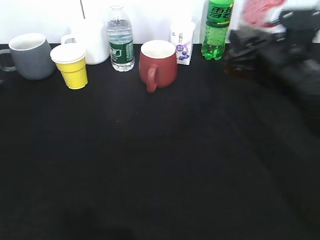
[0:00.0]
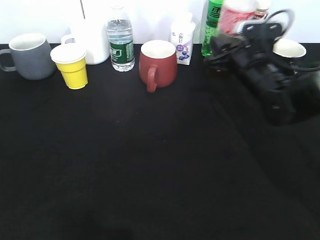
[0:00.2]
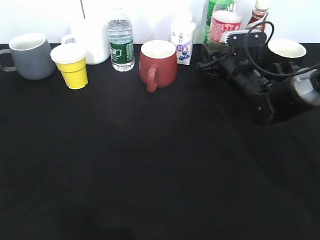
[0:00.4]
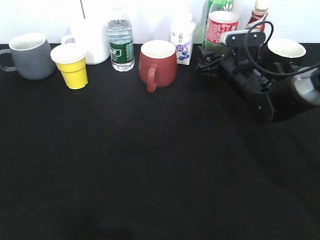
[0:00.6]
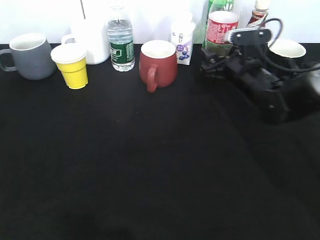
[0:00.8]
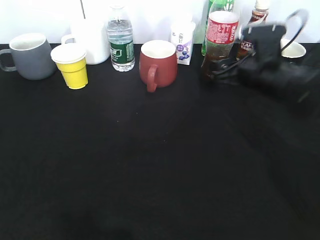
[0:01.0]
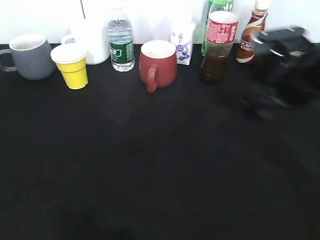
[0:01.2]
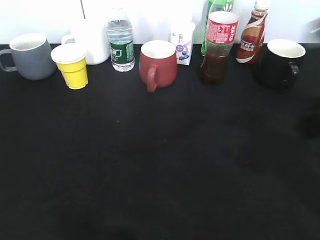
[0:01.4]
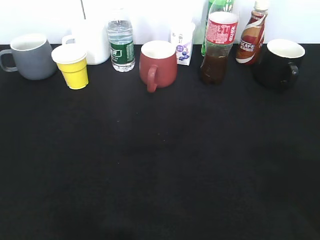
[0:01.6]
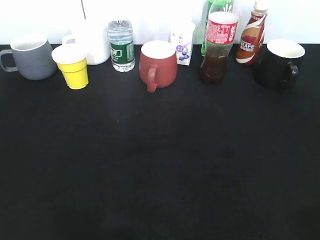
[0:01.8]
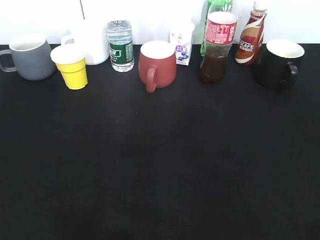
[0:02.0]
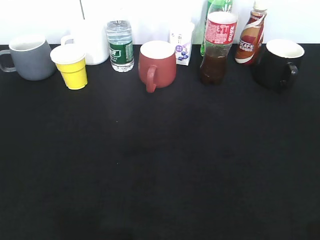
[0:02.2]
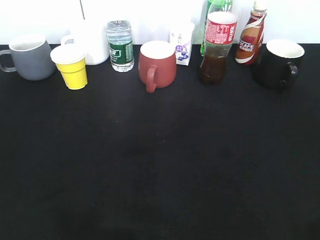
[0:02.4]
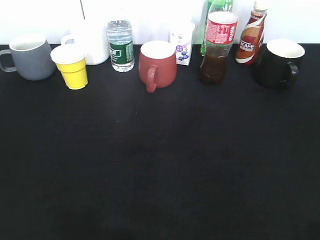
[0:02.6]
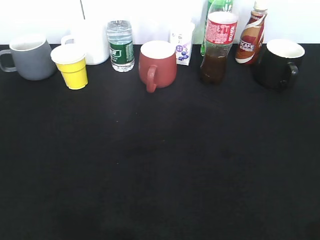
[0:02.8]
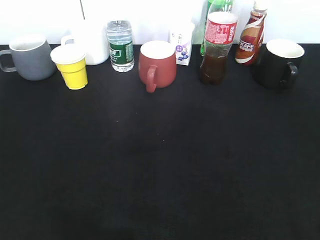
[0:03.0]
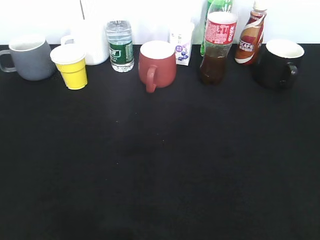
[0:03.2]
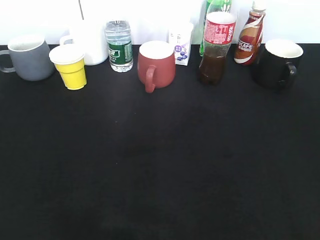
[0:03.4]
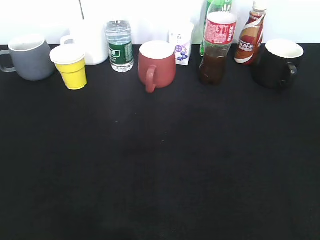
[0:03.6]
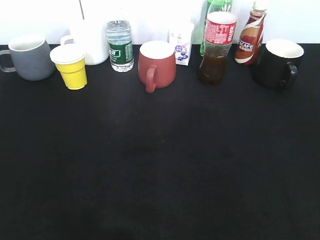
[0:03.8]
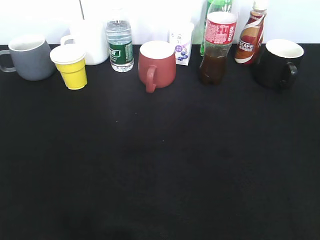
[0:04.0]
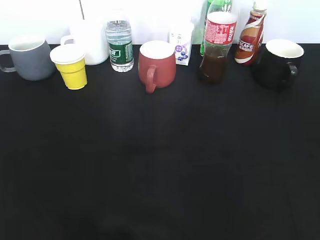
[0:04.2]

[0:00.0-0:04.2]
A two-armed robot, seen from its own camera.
Step, 0:00.0 to 0:01.0: Place the cola bottle on the table with right gripper.
0:00.0 to 0:01.4: Both grippers travel together backward and upward, about 20 cm. The right gripper opens up.
0:01.4 to 0:02.8: The left gripper is displaced backward by approximately 10 cm. Meanwhile the right gripper travels backward by roughly 20 cm.

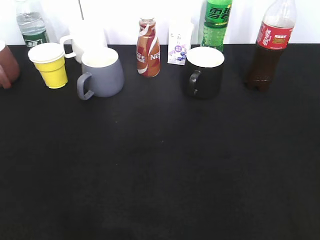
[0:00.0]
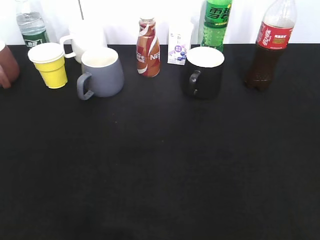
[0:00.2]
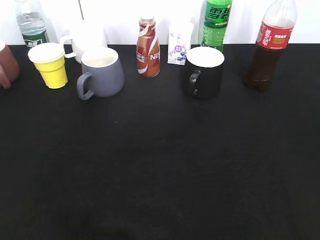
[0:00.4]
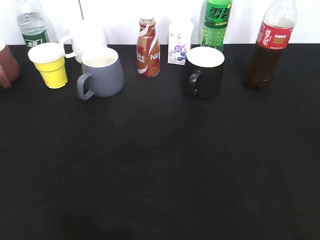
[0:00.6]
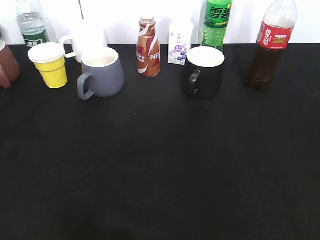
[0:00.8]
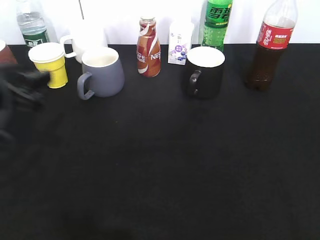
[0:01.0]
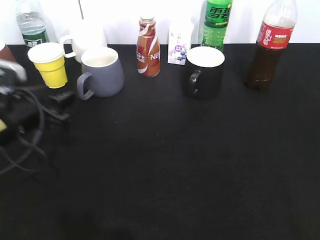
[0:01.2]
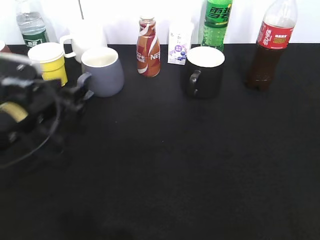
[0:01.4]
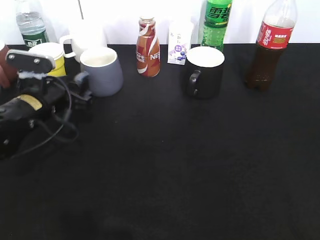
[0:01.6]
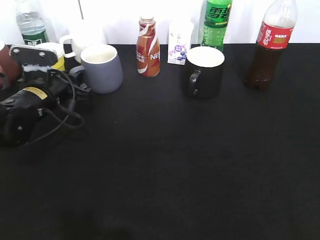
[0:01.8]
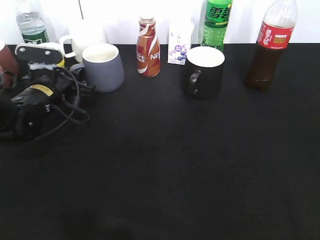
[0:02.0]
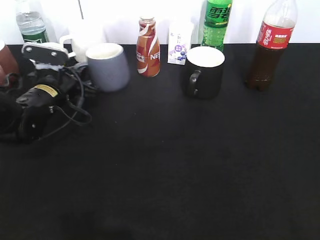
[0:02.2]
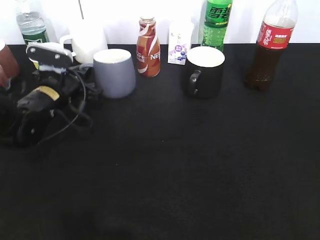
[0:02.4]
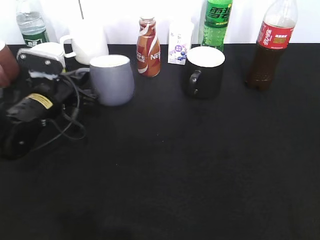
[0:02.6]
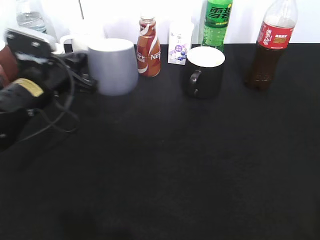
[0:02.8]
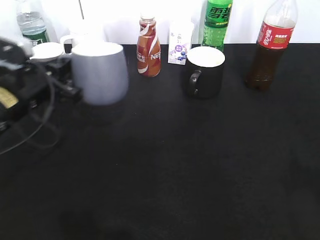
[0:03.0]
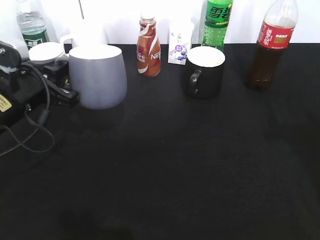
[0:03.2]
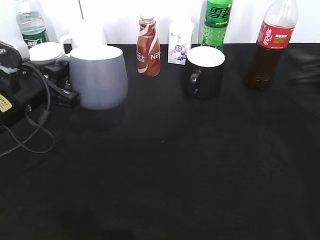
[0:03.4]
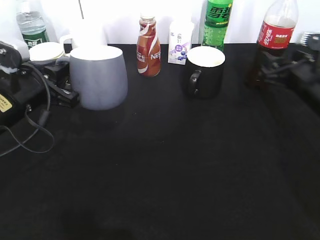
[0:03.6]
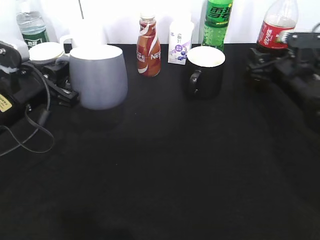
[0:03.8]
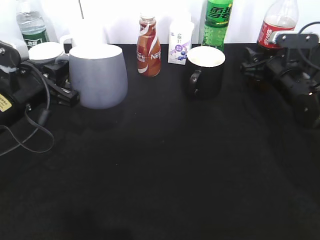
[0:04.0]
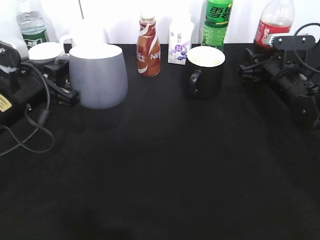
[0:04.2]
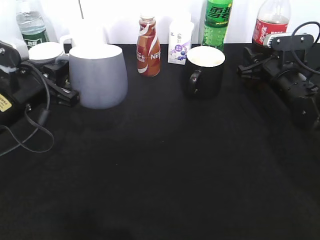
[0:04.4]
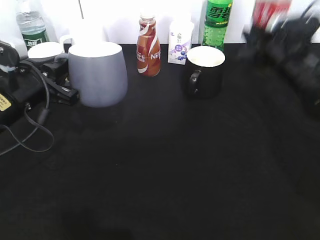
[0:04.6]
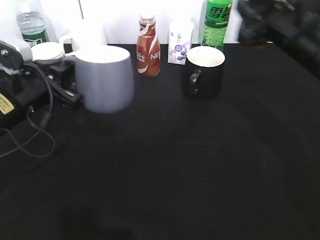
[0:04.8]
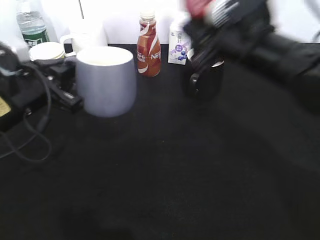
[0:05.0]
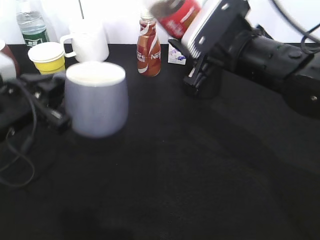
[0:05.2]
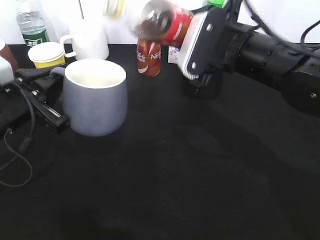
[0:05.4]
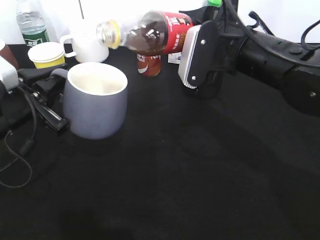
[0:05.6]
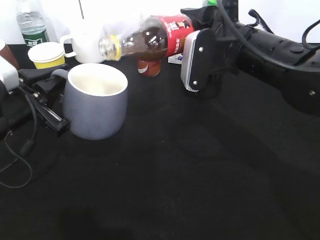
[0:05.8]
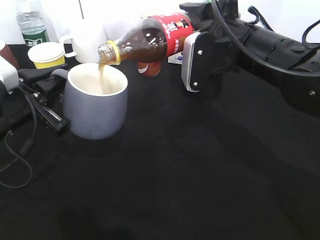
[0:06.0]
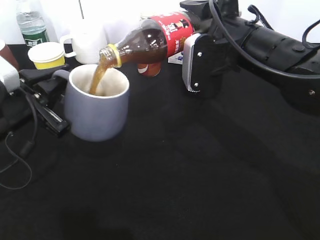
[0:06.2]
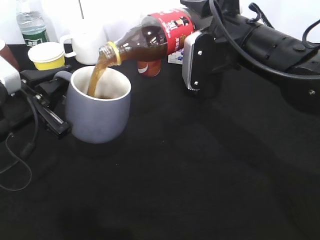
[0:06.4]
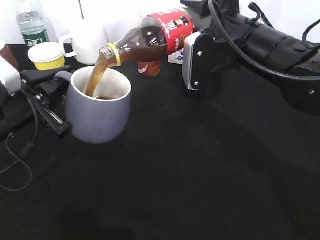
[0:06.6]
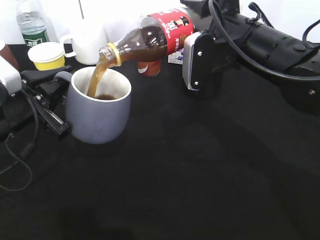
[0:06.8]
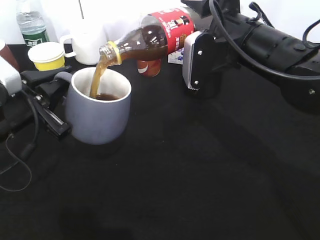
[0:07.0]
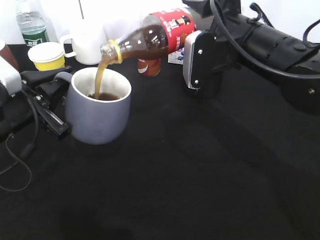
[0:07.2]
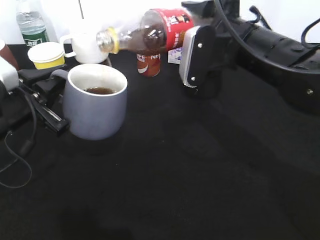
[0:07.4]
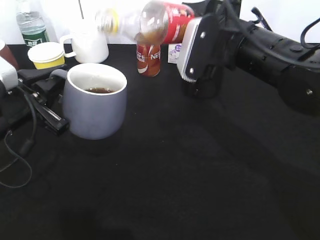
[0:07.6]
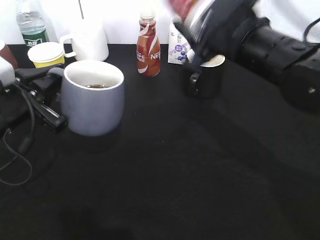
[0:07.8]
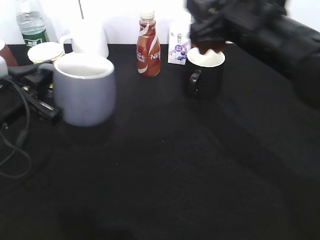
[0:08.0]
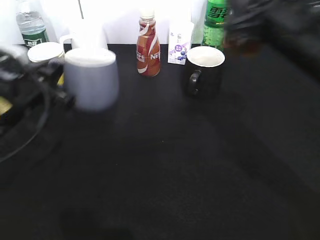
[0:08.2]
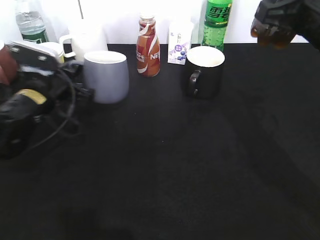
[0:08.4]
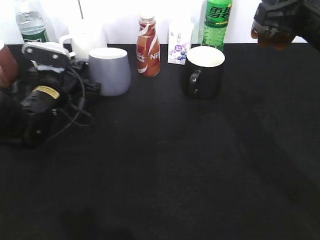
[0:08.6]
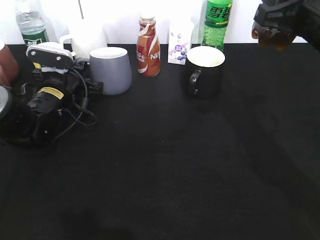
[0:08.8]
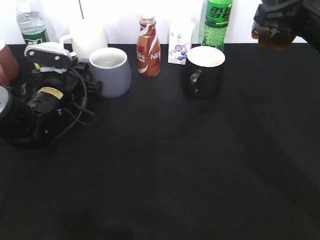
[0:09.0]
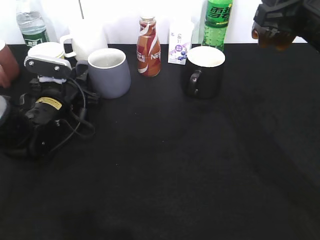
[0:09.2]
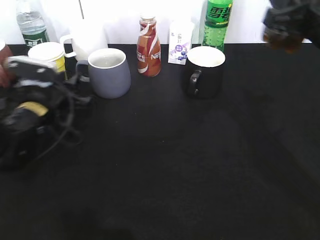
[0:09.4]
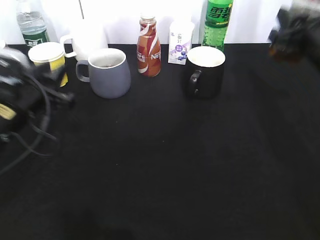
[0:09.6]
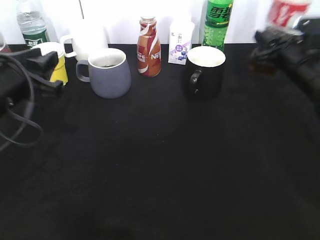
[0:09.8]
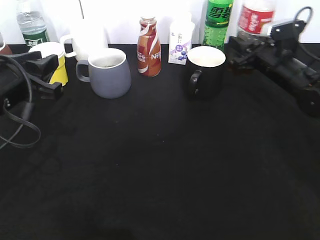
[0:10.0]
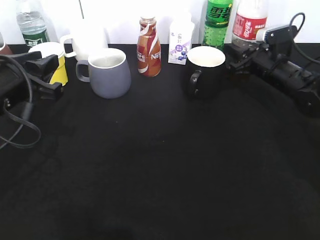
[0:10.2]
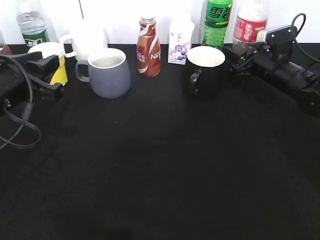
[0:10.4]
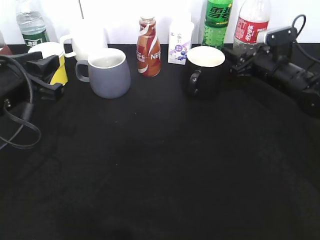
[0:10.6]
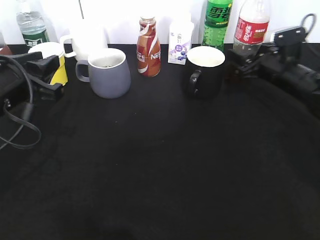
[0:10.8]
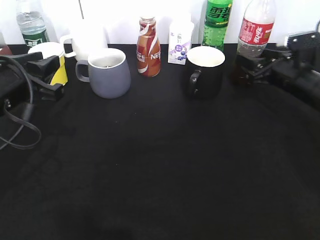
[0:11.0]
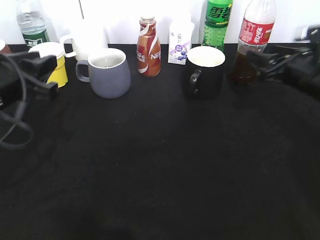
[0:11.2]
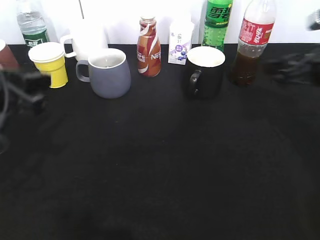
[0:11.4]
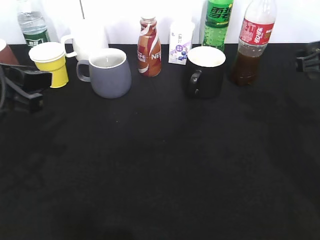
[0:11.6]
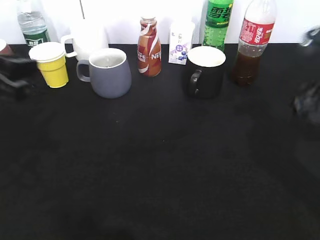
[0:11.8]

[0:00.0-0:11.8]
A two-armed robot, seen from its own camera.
Step, 0:00.0 to 0:02.0: Grasp the grey cup with left gripper.
Step, 0:02.4 to 0:03.2: Lift the grey cup with left gripper.
Step, 0:03.4 to 0:04.2: Grasp the bottle with cola with right gripper.
Step, 0:04.4 to 0:07.0: Pour the cola from bottle to cup with right gripper.
Step, 0:07.4 to 0:09.2: Place the grey cup on the table with left gripper.
Step, 0:09.4 to 0:11.2: Place the cola bottle on the table with right gripper.
0:00.0 to 0:01.4: The left gripper is displaced forward and downward by approximately 35 cm.
0:01.4 to 0:03.0: The right gripper goes approximately 10 cm forward, while the left gripper goes forward and returns, approximately 5 cm each way, and closes its fingers.
0:03.0 to 0:04.4: The right gripper moves forward and downward, approximately 35 cm, and closes up.
0:04.4 to 0:06.0: The right gripper travels to the left, upward and backward by about 20 cm.
0:06.0 to 0:07.4: There are only small adjustments of the grippers.
0:07.4 to 0:08.8: The right gripper shifts roughly 10 cm to the right; the left gripper heads forward and downward, covering about 15 cm.
0:08.8 to 0:10.4: The right gripper heads downward and forward, covering approximately 25 cm, and opens its fingers; the left gripper heads backward and upward, covering roughly 15 cm, and opens its fingers.
0:10.4 to 0:11.8: The right gripper moves backward and upward, about 25 cm; the left gripper travels upward by roughly 5 cm.

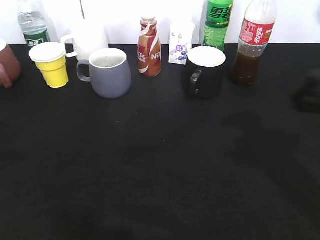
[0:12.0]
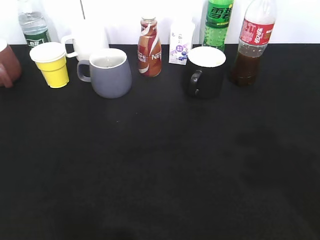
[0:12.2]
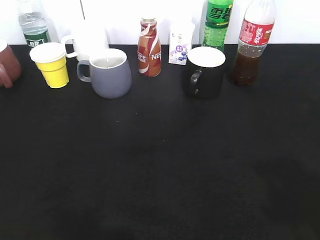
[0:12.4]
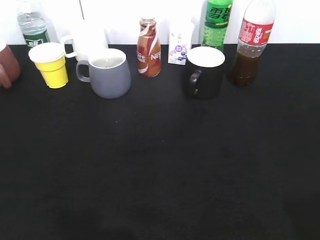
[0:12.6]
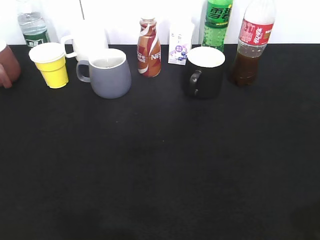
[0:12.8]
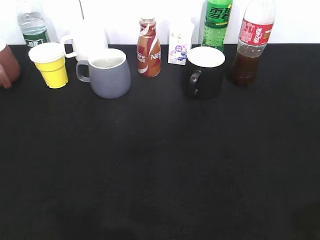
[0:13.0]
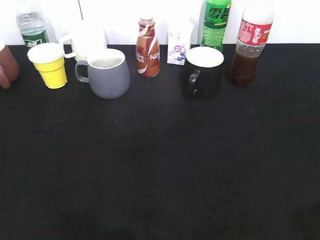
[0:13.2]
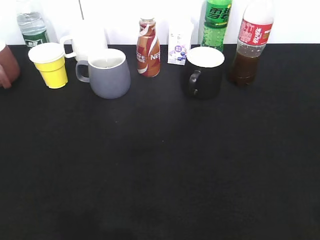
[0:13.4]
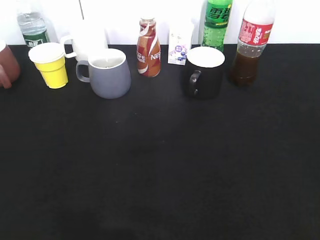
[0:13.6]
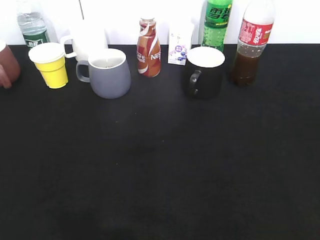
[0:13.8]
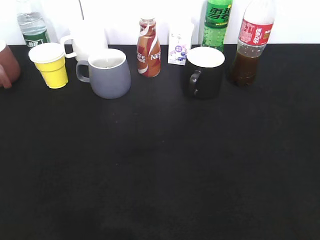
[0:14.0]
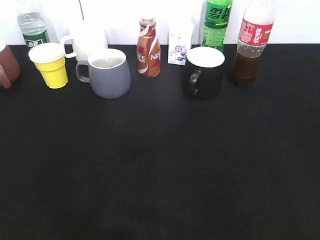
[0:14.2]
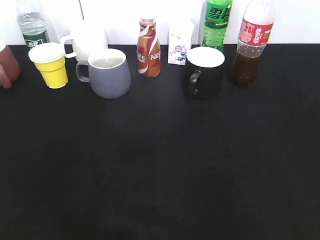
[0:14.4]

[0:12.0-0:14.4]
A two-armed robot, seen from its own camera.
0:12.0 to 0:13.2: The left gripper goes about 15 cm backward, while the right gripper moves backward and to the right, some 20 cm.

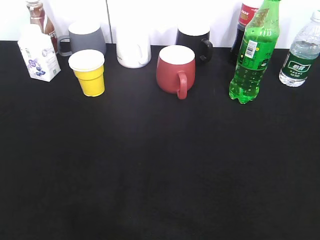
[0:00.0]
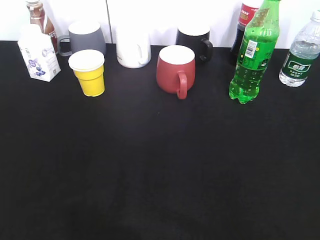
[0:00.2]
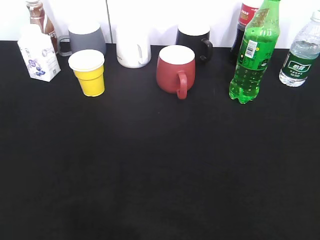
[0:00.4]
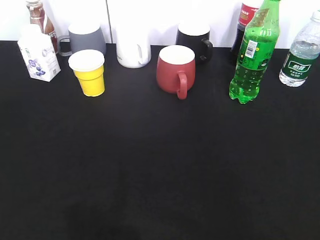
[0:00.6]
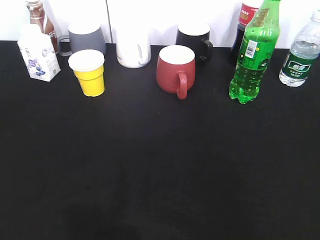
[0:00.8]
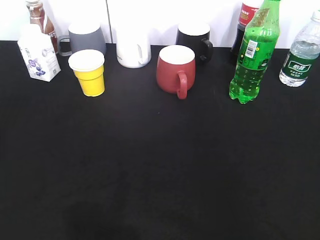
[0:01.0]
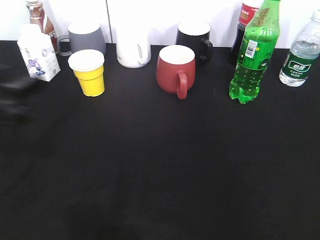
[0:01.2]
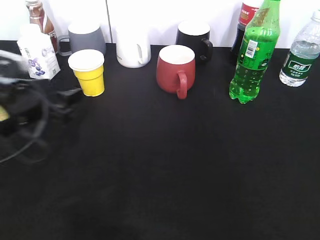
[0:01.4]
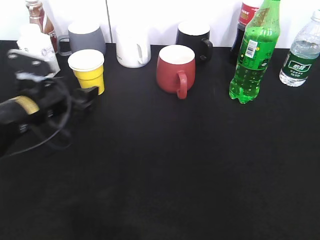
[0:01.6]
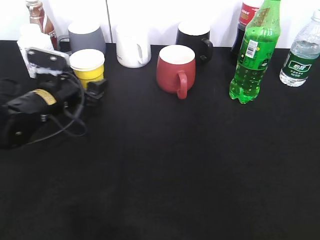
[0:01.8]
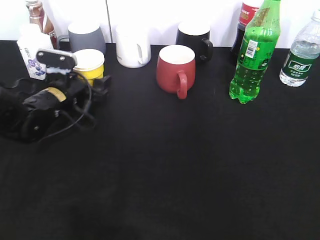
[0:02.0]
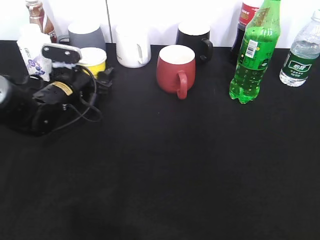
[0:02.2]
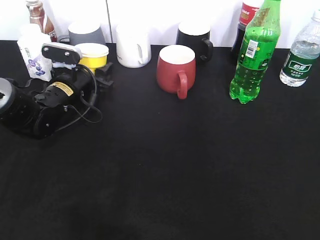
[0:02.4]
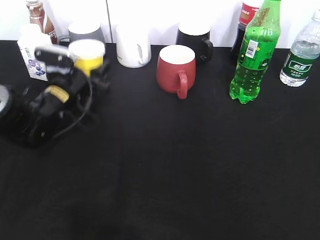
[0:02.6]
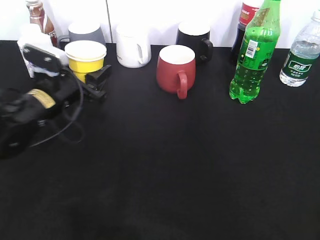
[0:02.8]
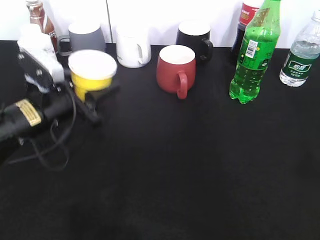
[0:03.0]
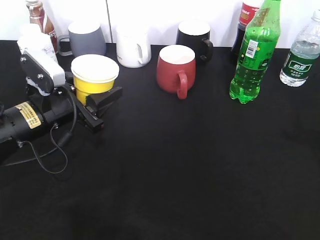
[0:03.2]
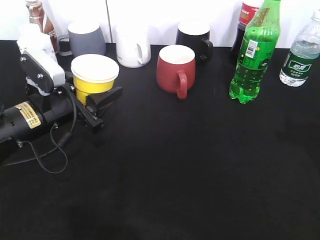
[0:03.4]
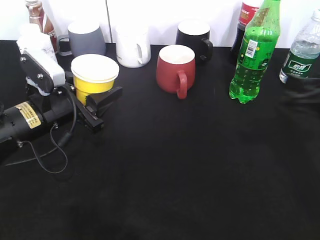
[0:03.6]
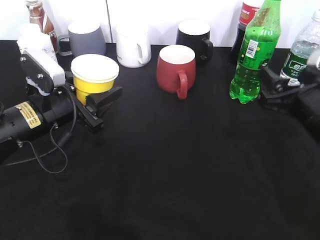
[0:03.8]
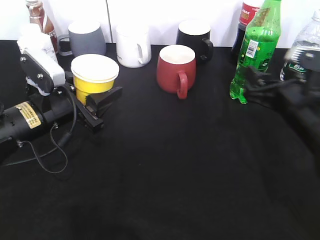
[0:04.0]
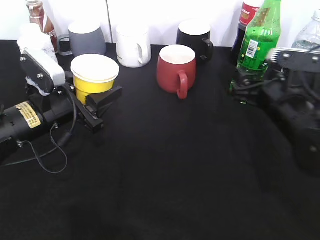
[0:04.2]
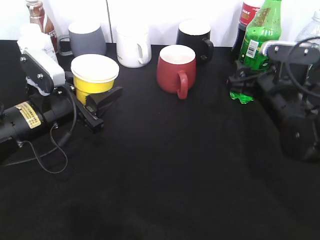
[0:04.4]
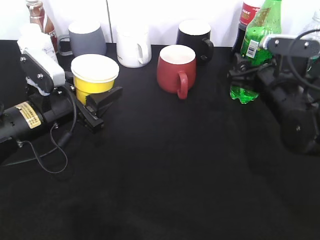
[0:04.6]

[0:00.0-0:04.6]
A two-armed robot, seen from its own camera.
Step, 0:00.0 to 0:02.2: Grasp the yellow paper cup with left gripper.
Step, 0:02.6 to 0:03.4: Lift the yellow paper cup with left gripper.
0:00.0 to 0:01.6: The left gripper goes approximately 35 cm forward and downward, and closes and opens again.
0:01.6 to 0:03.0: The left gripper goes forward and returns, about 10 cm each way, and closes.
0:03.0 to 0:04.6: The right gripper moves forward, downward and to the left, approximately 30 cm, and closes, then opens again.
